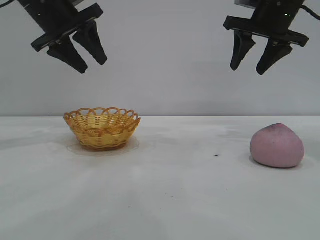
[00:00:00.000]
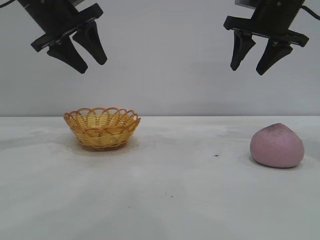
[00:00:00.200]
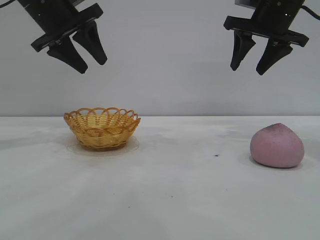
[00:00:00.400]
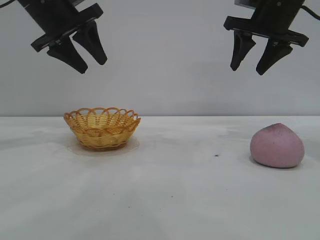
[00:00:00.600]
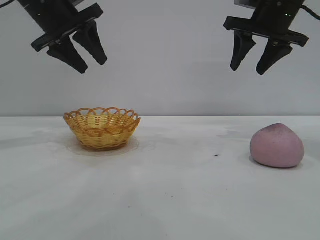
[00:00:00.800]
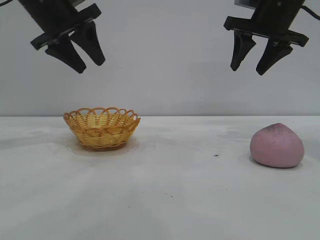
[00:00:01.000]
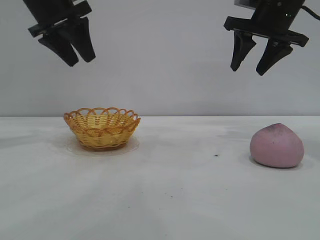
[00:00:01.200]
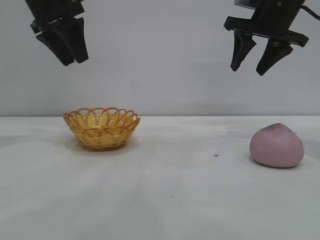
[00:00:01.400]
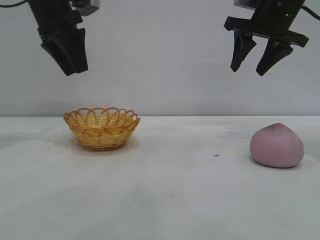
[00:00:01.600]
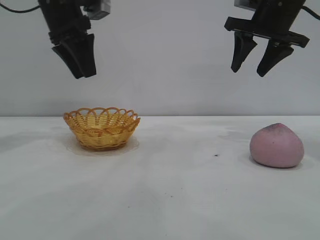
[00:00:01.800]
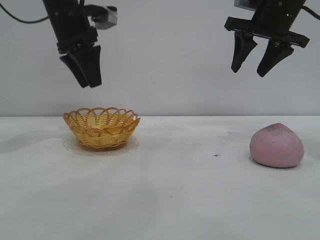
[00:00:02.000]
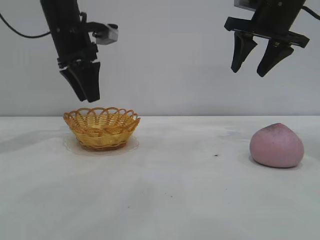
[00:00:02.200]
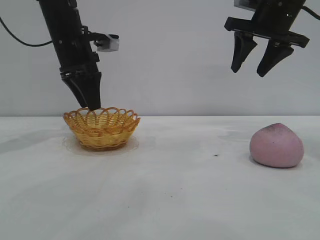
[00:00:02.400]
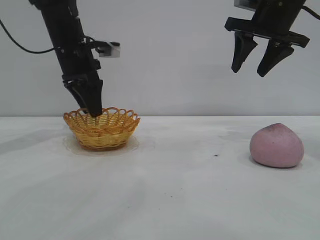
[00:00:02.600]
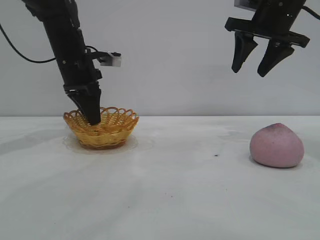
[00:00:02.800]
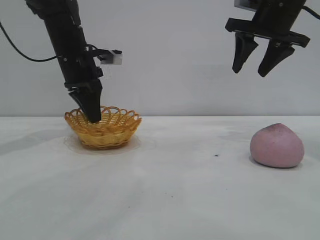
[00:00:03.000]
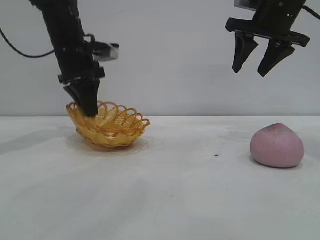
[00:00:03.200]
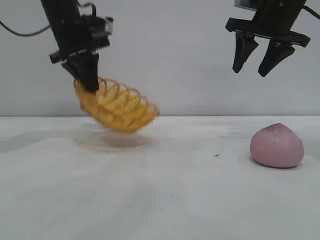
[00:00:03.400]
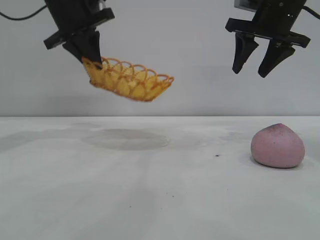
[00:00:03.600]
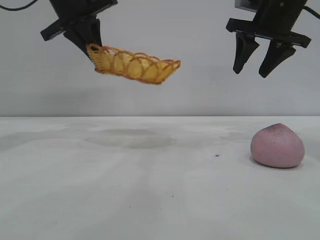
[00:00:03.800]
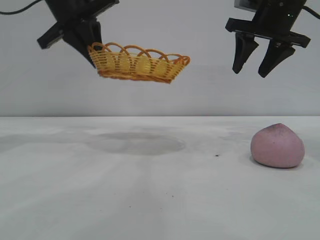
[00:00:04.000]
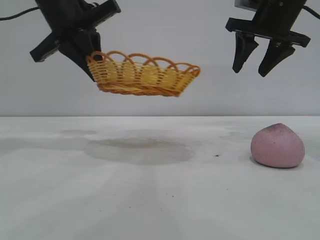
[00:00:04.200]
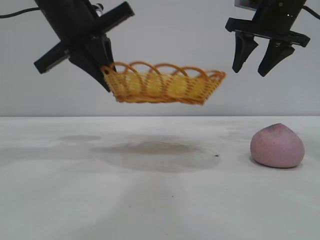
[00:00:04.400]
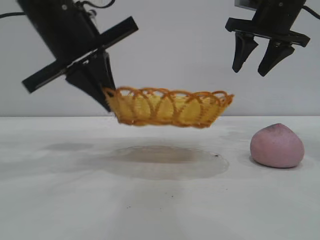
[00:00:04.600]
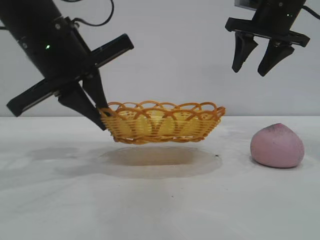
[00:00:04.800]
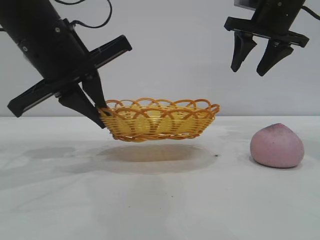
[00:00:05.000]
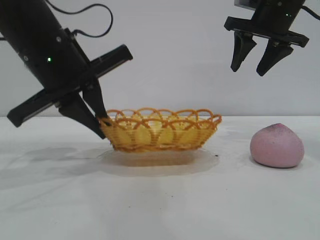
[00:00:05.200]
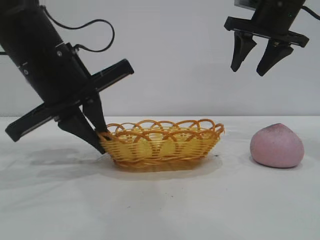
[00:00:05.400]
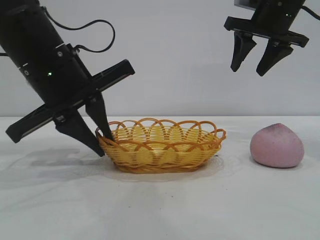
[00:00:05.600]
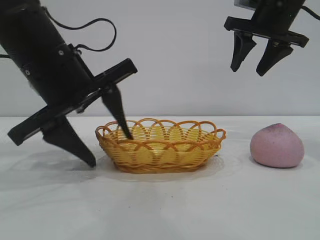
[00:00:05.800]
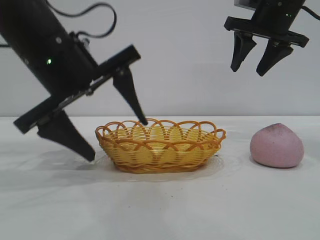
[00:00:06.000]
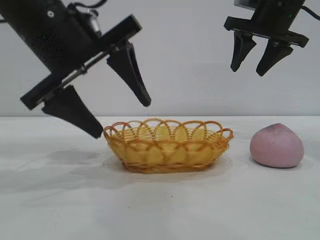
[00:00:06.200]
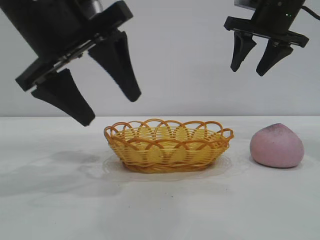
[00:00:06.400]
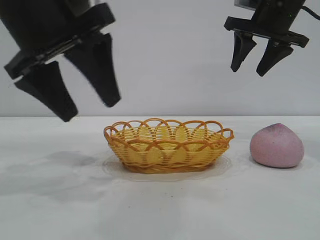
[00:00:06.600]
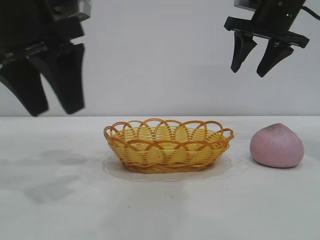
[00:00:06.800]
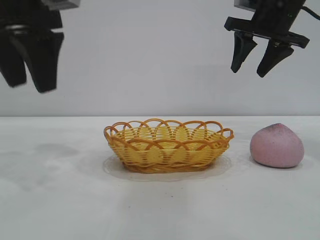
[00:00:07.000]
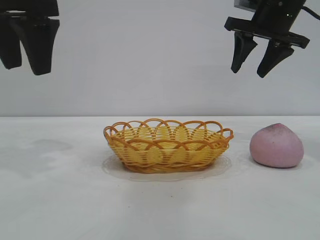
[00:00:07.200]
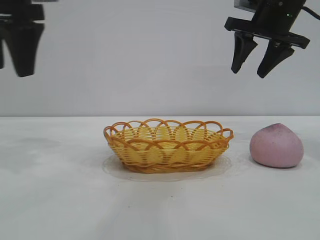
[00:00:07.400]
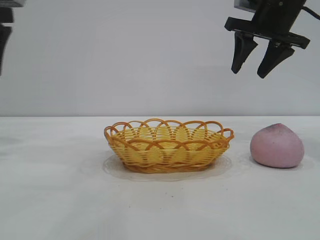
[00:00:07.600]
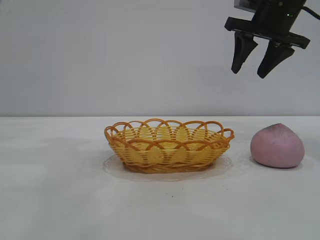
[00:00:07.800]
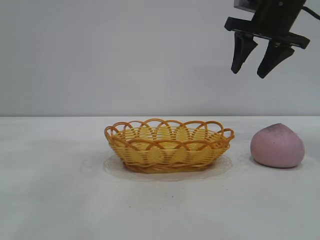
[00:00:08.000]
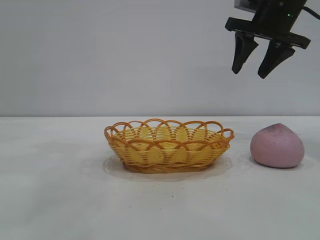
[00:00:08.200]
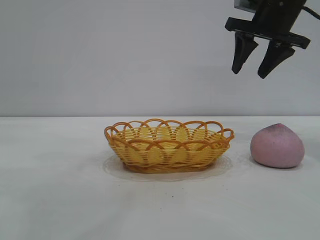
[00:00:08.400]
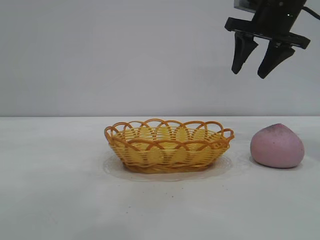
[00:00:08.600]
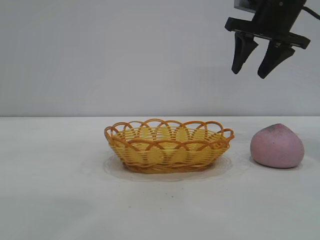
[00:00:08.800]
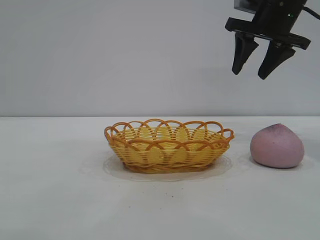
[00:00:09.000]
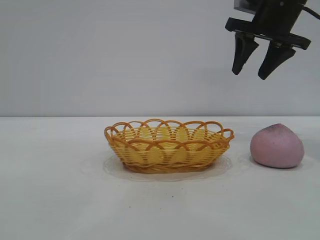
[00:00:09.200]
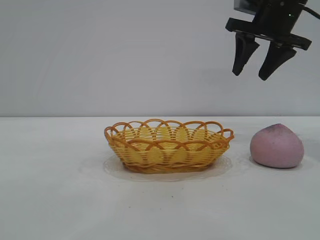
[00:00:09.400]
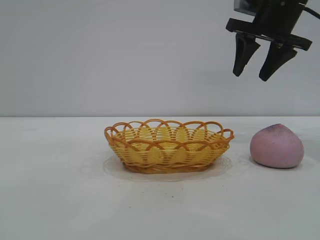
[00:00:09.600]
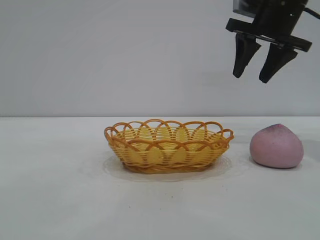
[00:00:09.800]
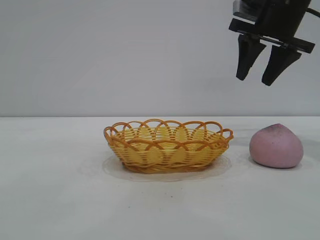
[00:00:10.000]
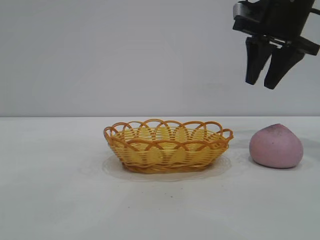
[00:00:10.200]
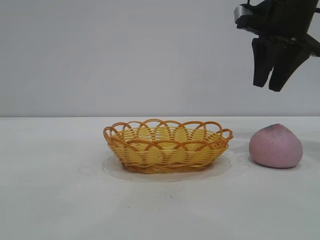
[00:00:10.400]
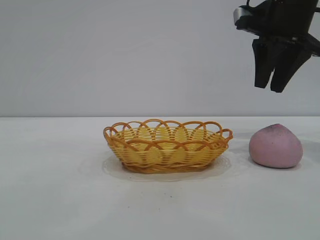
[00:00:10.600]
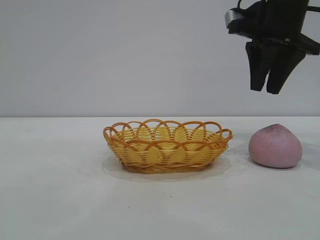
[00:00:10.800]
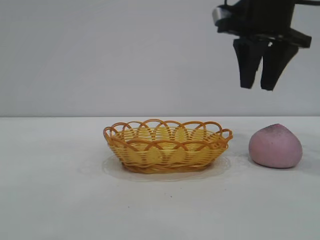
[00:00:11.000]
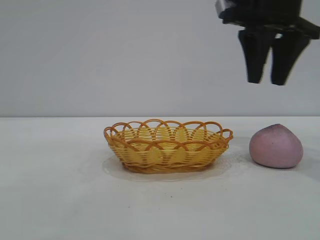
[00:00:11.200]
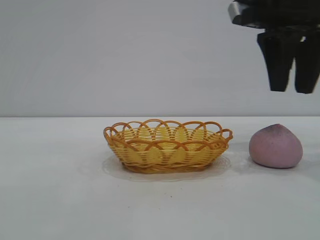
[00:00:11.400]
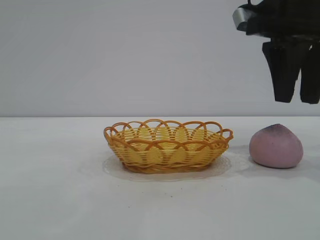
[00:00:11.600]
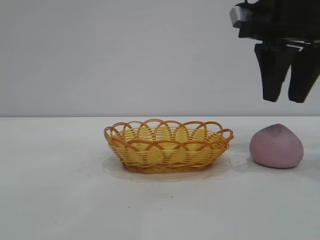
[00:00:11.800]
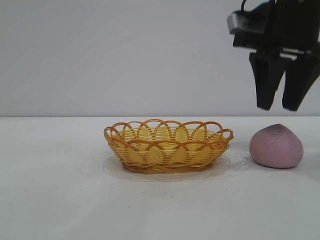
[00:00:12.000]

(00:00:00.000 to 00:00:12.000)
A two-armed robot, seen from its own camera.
Task of the whole recording: pick up the peach and put it into the basket.
Step, 00:00:00.000 - 00:00:06.200: Move the basket to the center of view.

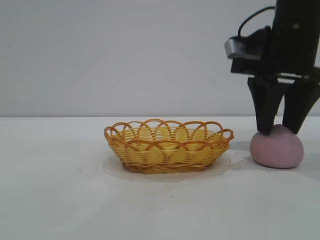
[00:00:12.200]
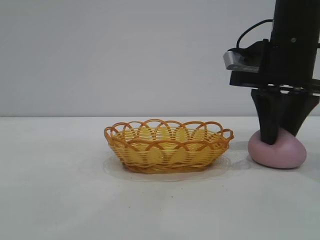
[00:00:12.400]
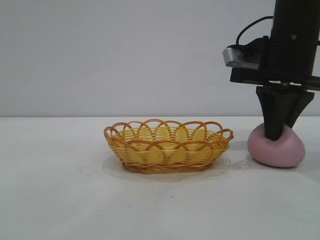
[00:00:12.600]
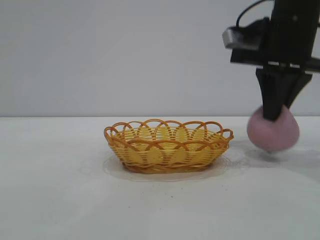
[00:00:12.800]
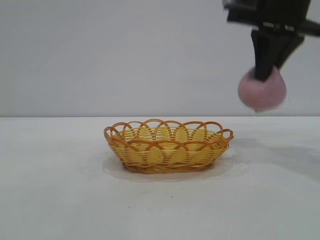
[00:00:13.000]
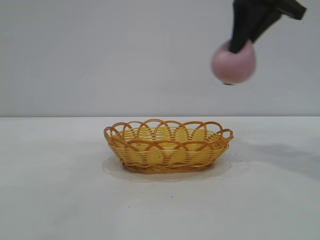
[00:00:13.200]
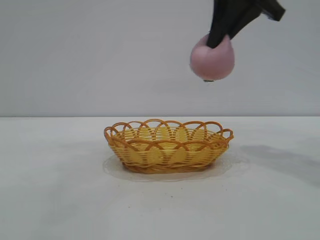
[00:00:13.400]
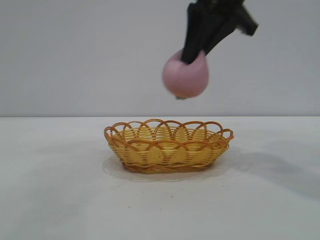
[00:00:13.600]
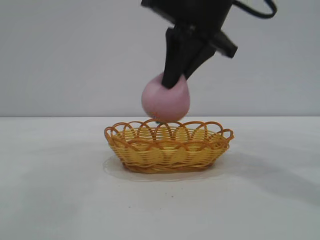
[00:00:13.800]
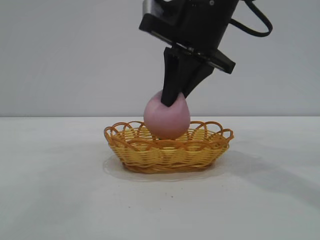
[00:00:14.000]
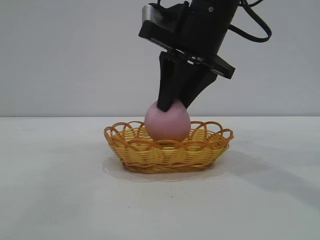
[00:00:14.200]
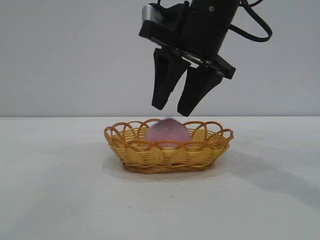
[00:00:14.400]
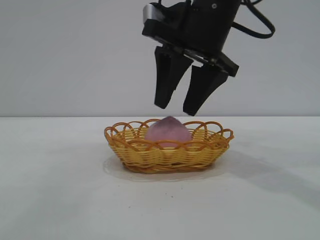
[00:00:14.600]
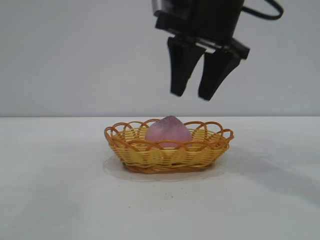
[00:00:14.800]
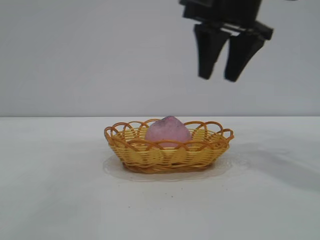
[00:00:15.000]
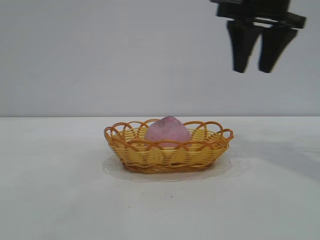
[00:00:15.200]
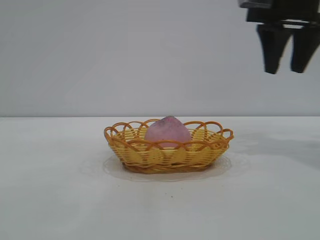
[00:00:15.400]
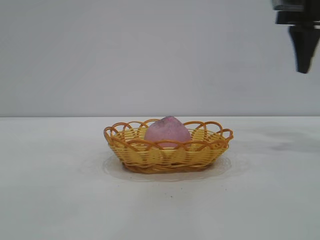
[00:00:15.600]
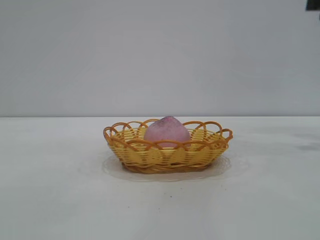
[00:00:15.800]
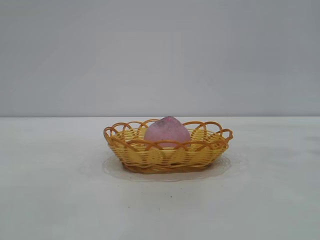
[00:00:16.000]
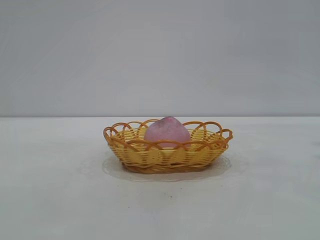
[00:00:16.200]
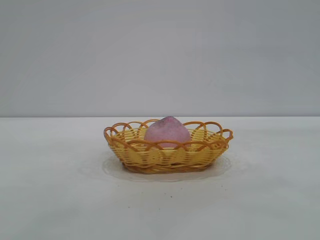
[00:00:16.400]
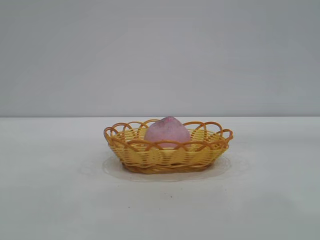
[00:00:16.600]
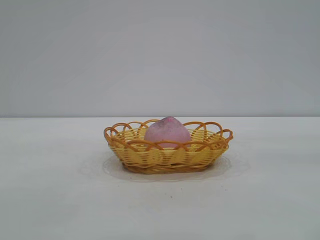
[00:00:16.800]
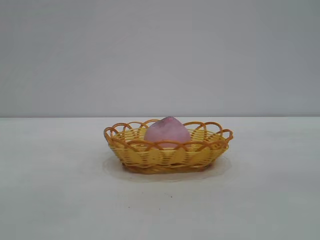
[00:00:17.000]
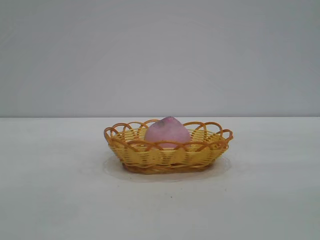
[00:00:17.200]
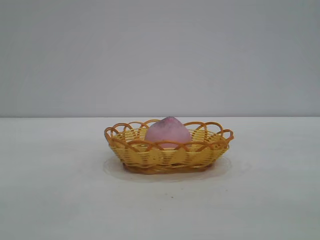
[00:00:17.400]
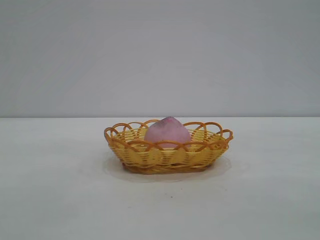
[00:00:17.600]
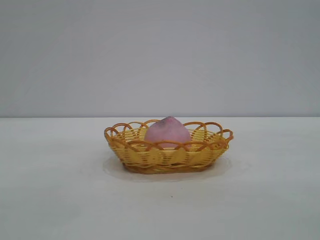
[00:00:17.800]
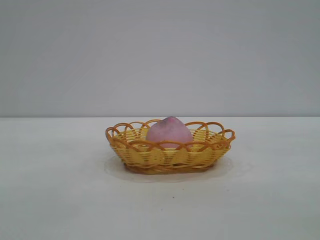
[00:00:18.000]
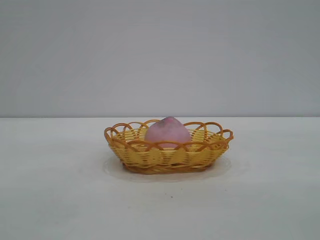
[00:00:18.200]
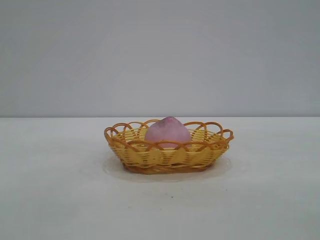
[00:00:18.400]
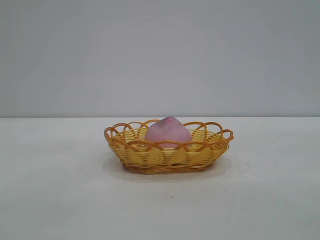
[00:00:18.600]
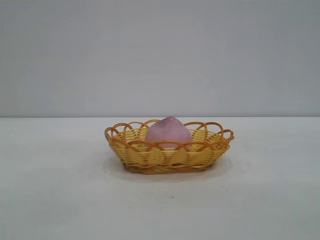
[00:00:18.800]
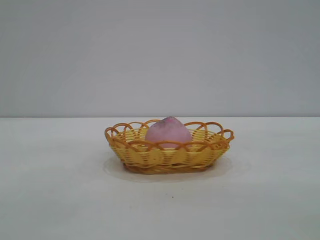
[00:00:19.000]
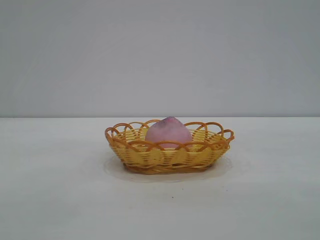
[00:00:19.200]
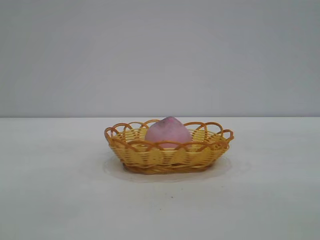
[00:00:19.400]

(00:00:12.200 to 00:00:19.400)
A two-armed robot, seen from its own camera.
Task of the whole recording: pick up the peach and put it into the basket.
Step, 00:00:13.000 - 00:00:14.600: place the peach into the basket.
